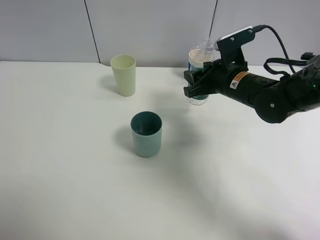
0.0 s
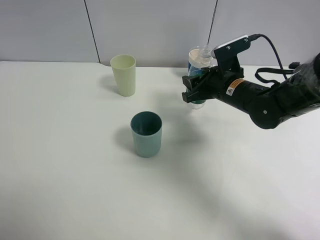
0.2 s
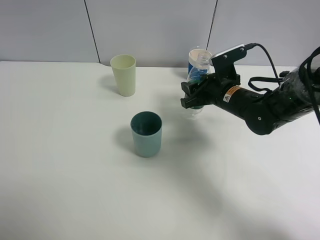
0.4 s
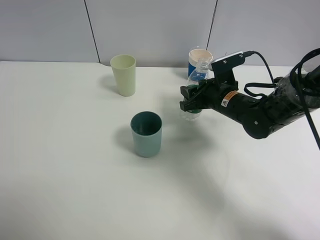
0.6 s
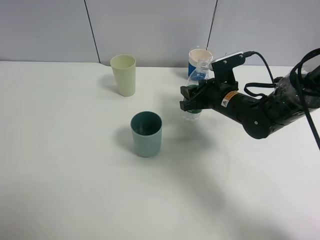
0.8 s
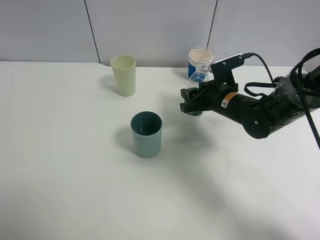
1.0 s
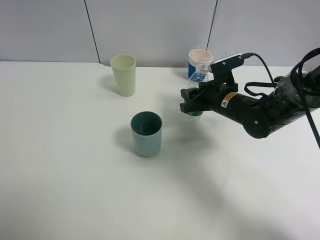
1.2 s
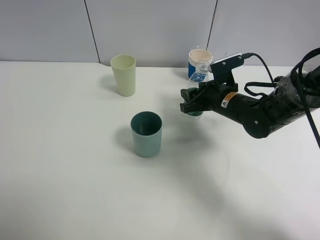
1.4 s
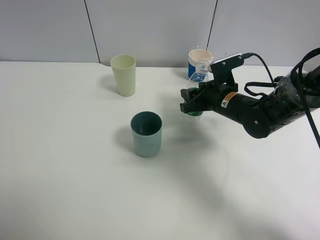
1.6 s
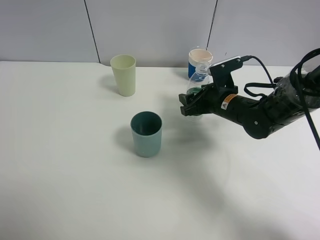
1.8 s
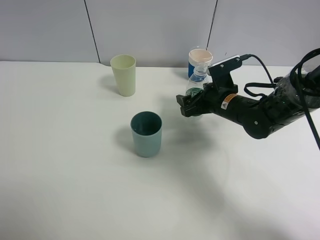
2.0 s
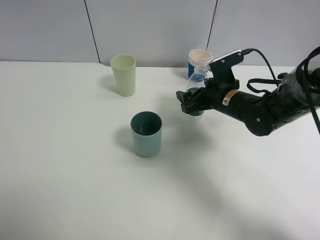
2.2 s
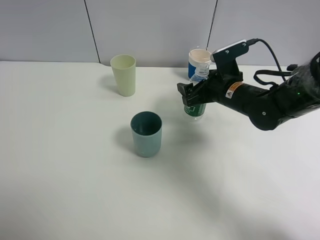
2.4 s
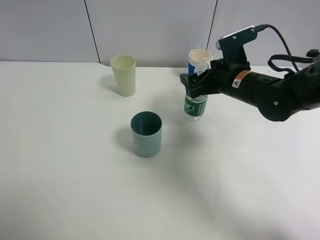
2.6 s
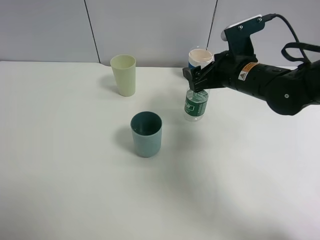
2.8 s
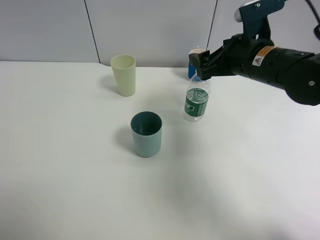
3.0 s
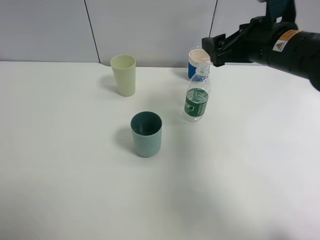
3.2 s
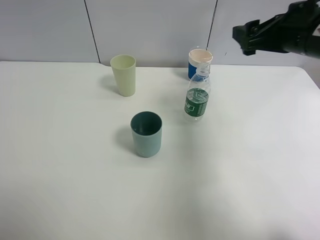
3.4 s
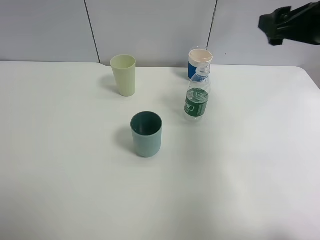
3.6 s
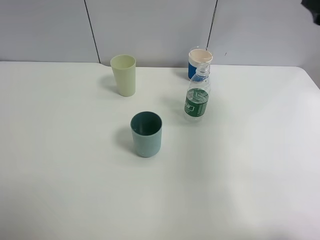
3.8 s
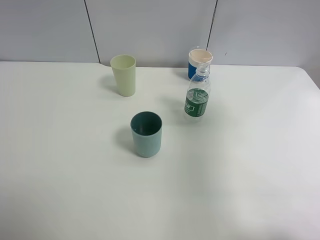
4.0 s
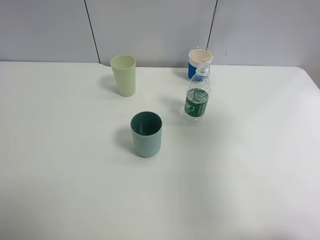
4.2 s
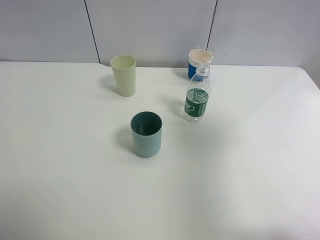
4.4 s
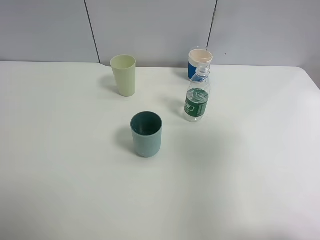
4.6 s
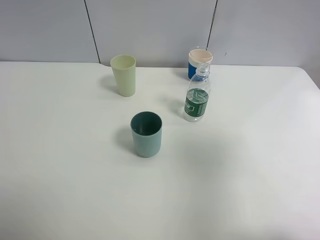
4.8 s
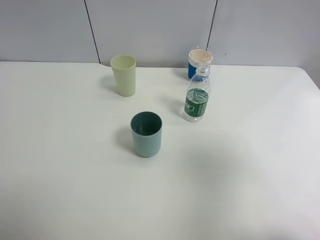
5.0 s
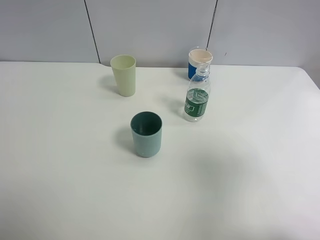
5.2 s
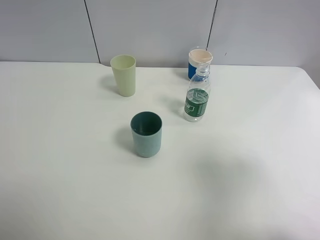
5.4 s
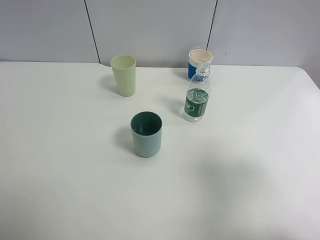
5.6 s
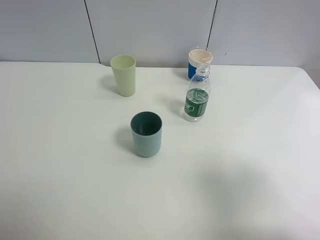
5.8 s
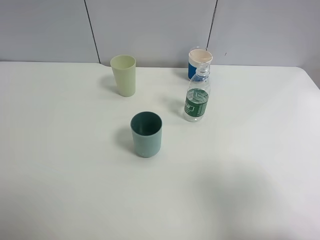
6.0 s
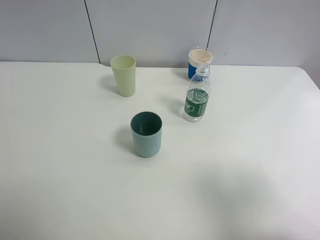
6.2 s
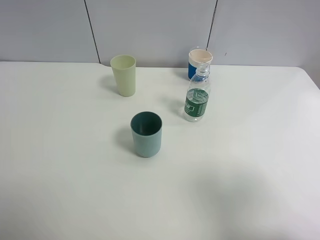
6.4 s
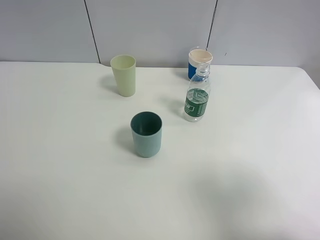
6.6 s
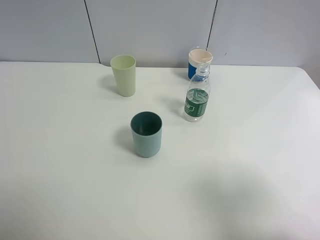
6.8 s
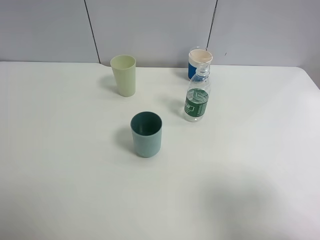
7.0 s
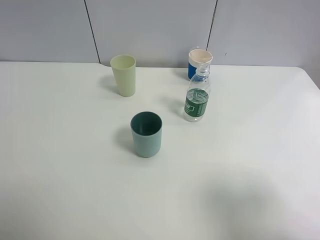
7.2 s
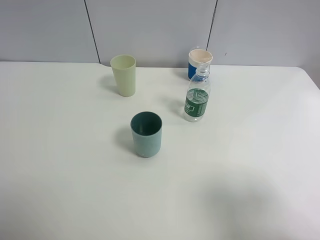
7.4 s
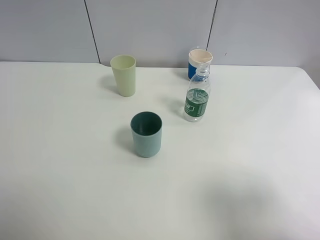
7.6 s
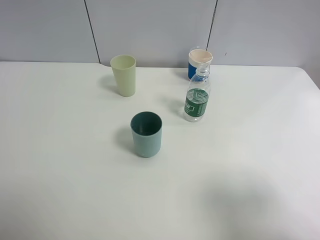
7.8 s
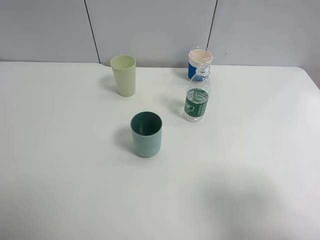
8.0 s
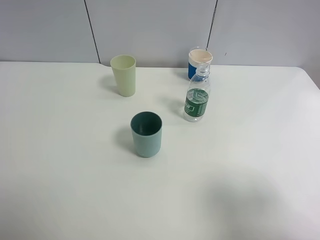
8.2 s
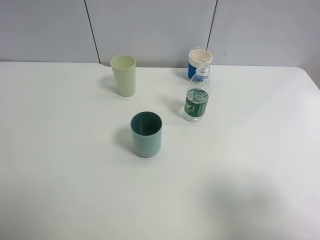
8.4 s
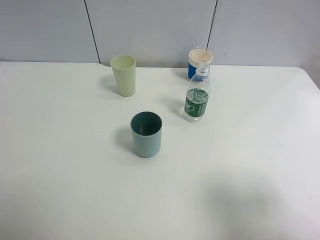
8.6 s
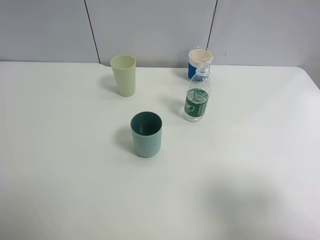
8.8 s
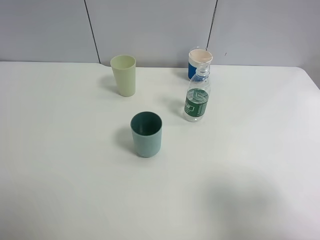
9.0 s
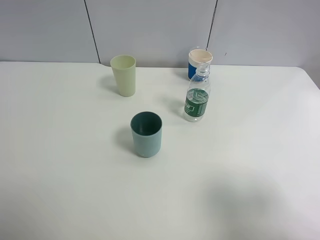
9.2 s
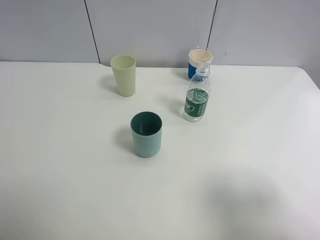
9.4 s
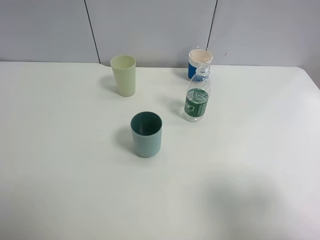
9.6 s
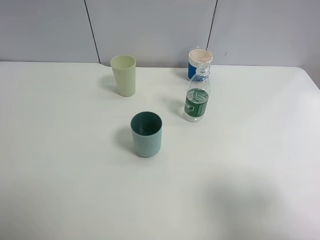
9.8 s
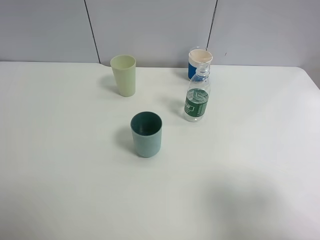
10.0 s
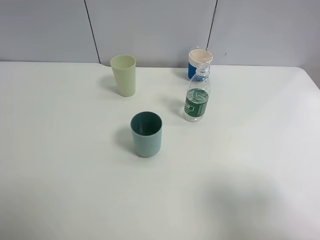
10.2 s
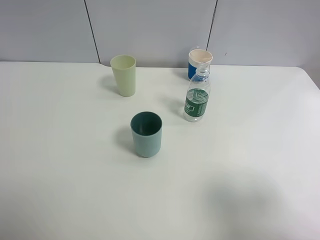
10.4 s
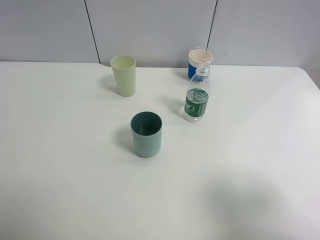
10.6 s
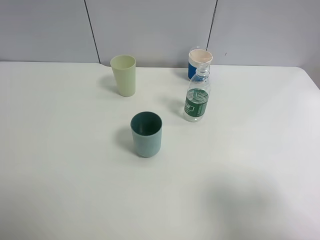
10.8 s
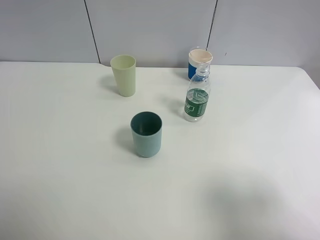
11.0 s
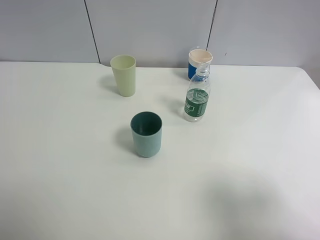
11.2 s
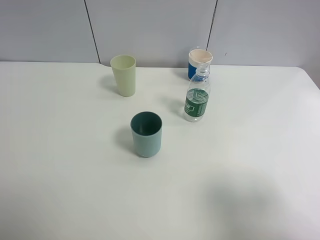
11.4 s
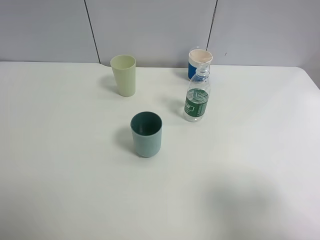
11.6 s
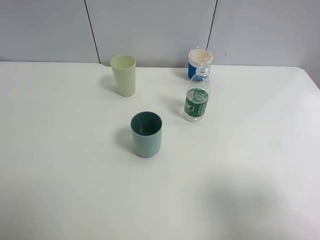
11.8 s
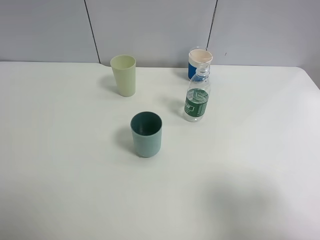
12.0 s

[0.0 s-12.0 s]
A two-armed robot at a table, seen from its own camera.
Task of the whole recording: use a clamp to hold the bottle of the drink, pour the beverage into a random cup, then clamp the cup containing the drink and pour the drink into another random cup.
Step, 0.0 to 2.0 s: Place the water bottle on the table with right gripper.
0.0 to 1.6 s: The right gripper travels downward by some 5 cm.
1.6 to 3.0 s: The right gripper goes about 15 cm upward, and opens up.
3.0 to 4.4 s: The right gripper heads backward, upward and to the right, covering roughly 25 cm.
4.4 to 6.0 s: The right gripper travels backward and downward by roughly 15 cm.
7.6 to 12.0 s: Neither gripper changes place.

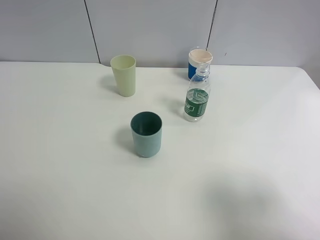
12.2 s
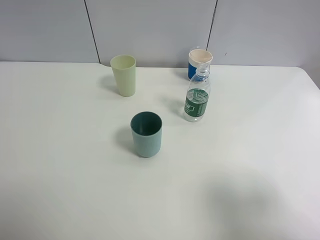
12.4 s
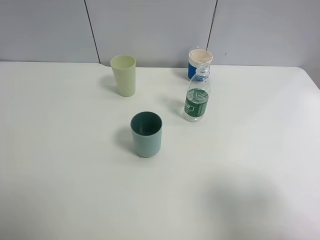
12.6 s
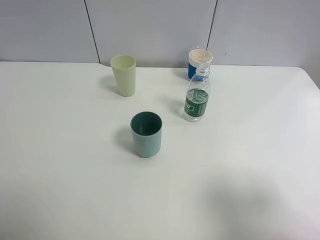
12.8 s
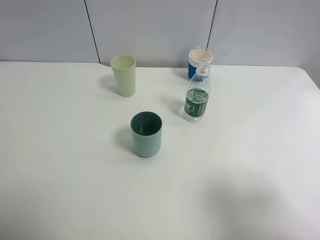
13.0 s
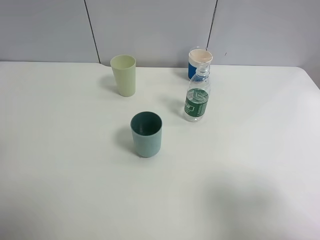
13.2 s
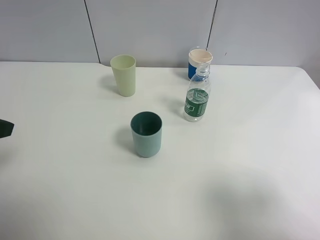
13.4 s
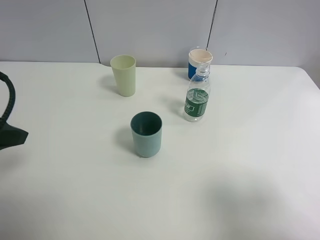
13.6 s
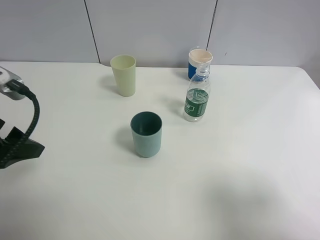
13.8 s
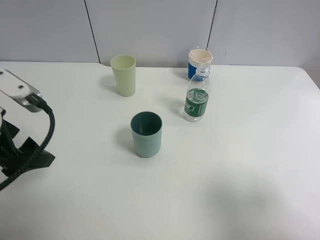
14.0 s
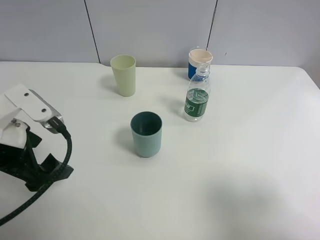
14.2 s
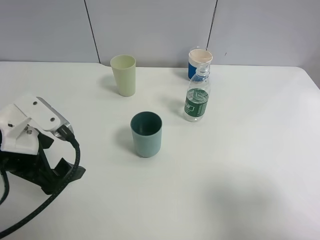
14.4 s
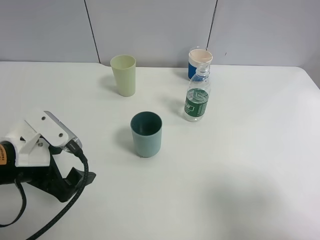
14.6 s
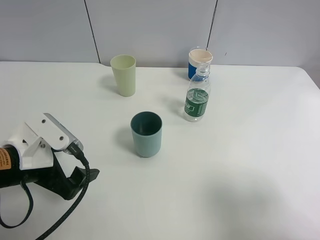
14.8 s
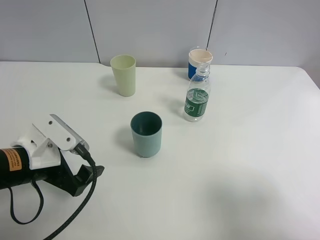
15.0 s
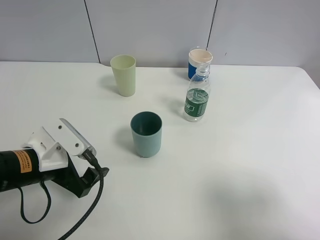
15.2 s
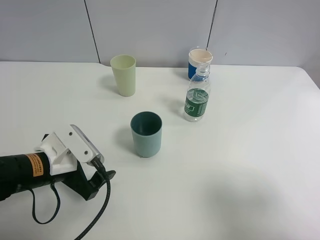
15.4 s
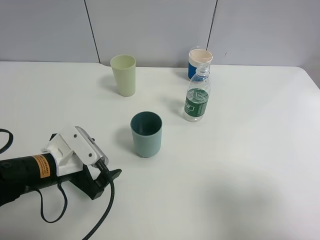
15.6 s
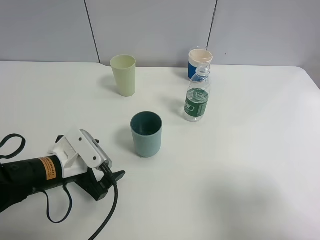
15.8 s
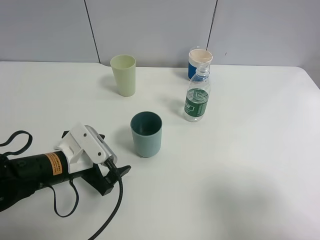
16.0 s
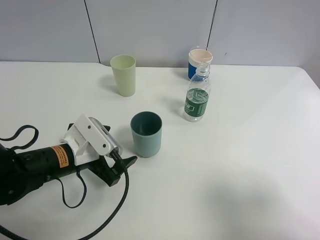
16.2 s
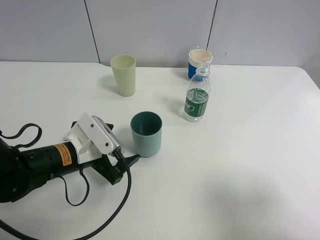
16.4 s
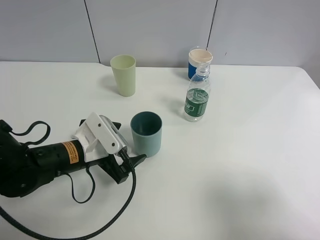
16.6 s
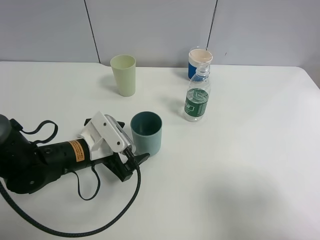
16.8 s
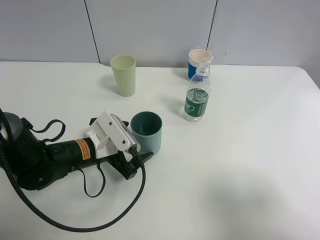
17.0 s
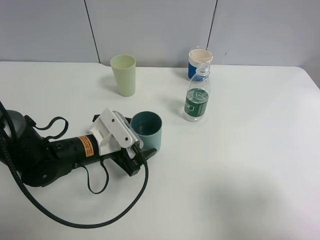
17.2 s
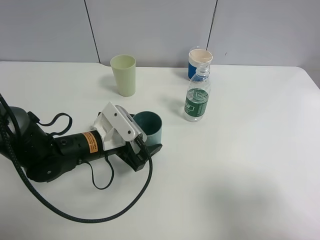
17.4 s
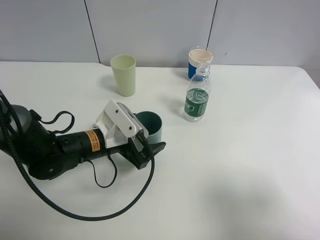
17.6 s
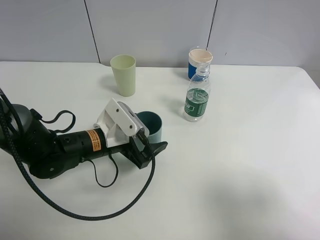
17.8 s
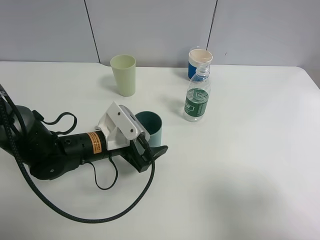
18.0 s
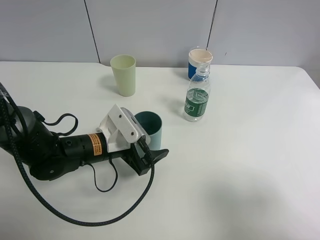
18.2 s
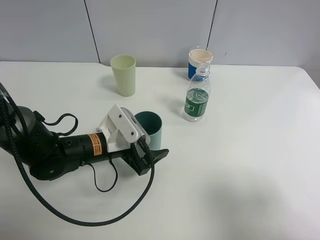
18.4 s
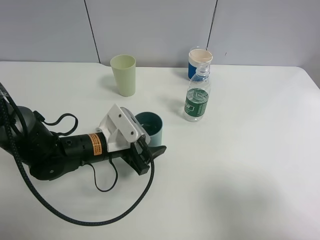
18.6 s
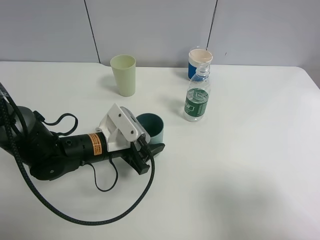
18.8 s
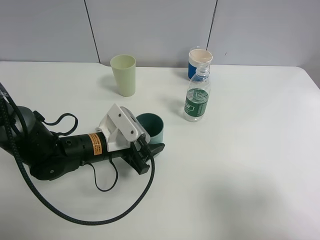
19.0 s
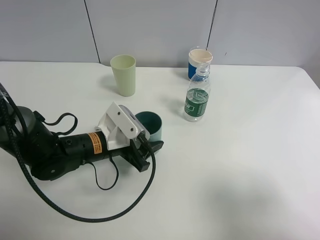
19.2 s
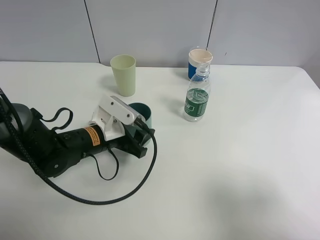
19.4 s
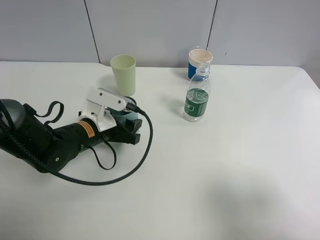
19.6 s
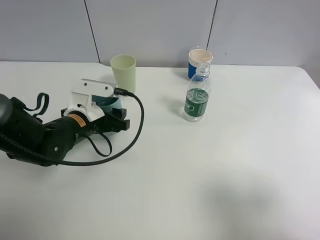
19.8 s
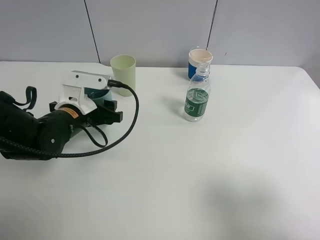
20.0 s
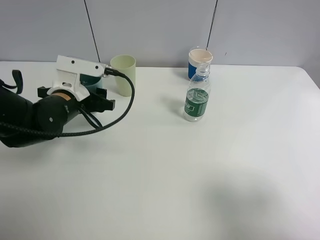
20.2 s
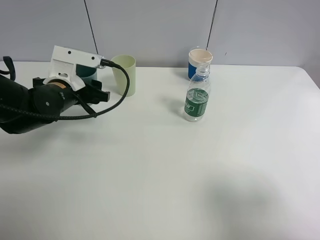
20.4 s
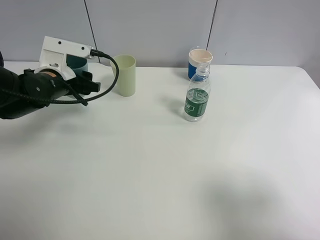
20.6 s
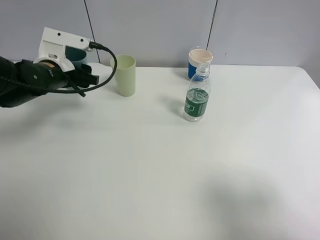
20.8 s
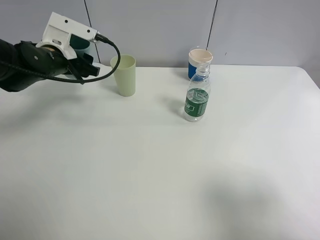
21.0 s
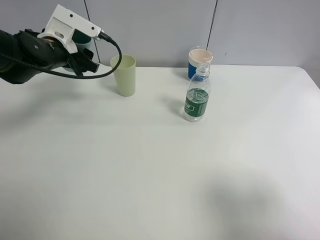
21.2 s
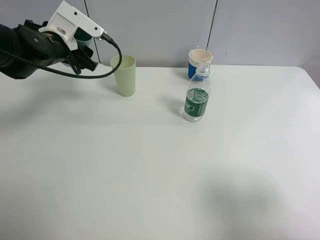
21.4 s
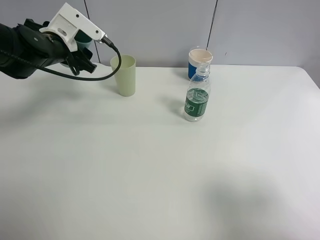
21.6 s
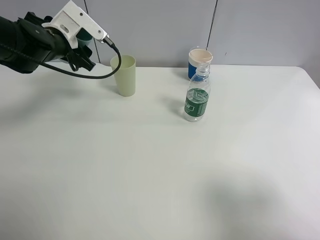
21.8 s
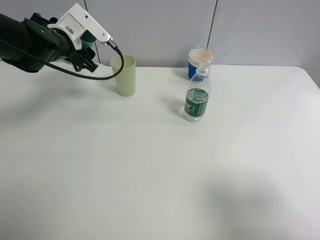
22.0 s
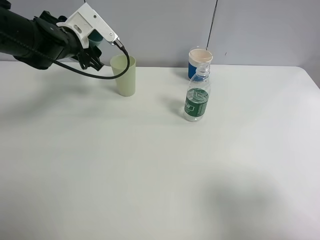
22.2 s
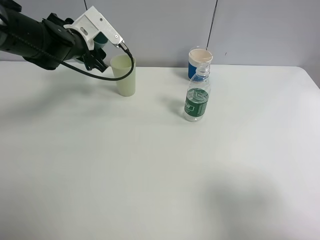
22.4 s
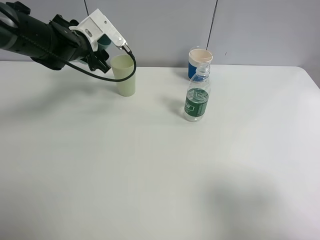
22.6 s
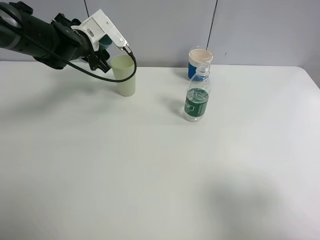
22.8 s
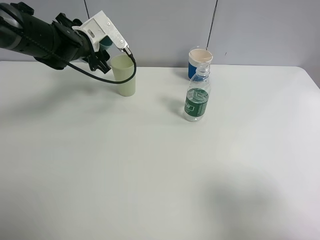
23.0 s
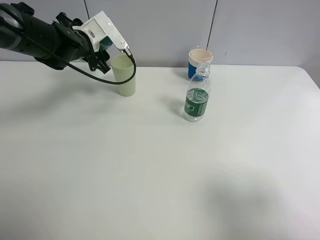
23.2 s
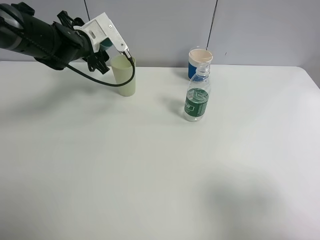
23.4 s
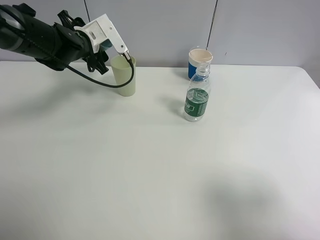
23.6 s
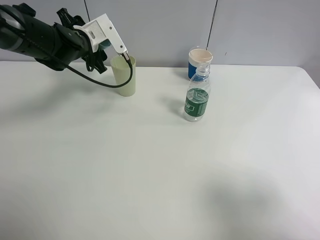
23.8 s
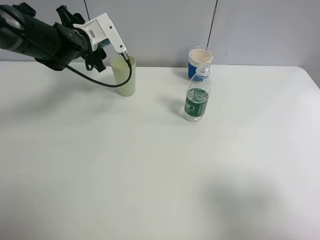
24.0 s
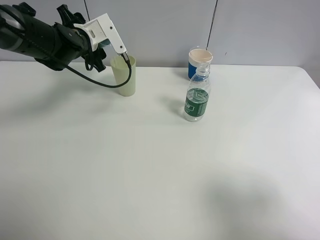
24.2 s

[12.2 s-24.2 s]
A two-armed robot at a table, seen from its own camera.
Task of the whole recording: use a clamp to hold the bottle of the drink, pour the beverage into a random cup, then clamp the cup containing the drink and pour the drink into another random cup.
Step, 12.2 to 18.8 s: Pick up the blue plastic cup bottle with left gripper.
12.2 to 13.8 s: The left gripper is displaced forward by approximately 15 cm.
13.8 to 15.2 s: The left gripper moves downward and to the right, some 15 cm.
15.2 to 16.6 s: The left gripper moves to the right, some 5 cm.
16.6 to 18.2 s: There are only small adjustments of the grippers.
18.2 to 19.8 s: The left gripper moves about 5 cm, and closes up.
19.8 to 21.2 s: The left gripper moves forward, upward and to the left, some 15 cm.
21.2 to 22.6 s: The left gripper moves approximately 5 cm.
22.6 to 24.2 s: The grippers stay close to where they were, moving slightly.
